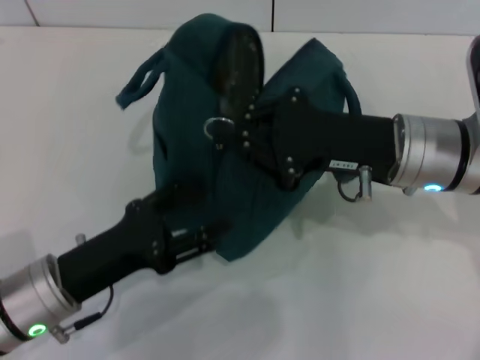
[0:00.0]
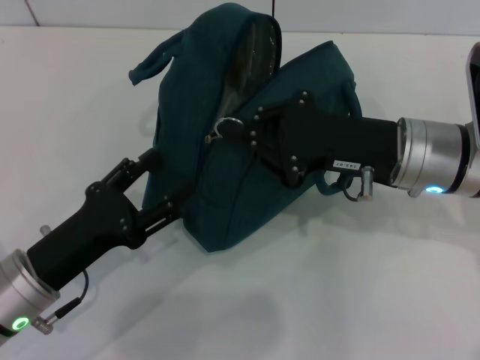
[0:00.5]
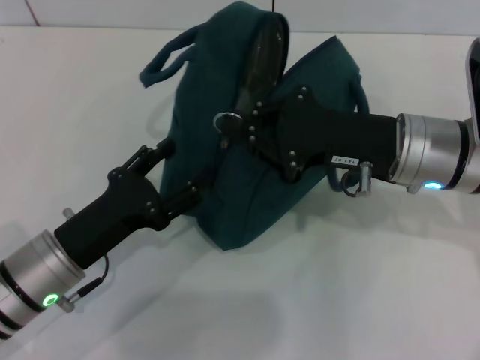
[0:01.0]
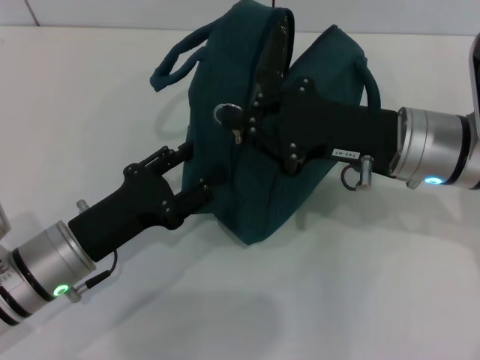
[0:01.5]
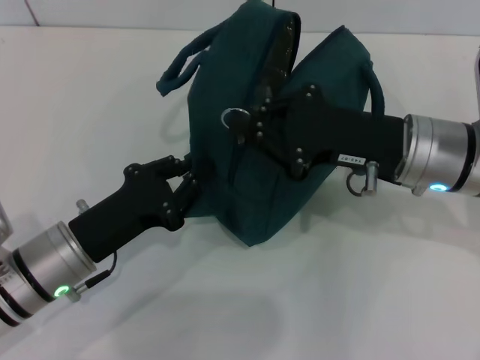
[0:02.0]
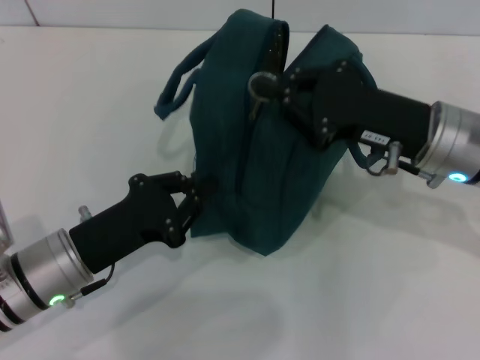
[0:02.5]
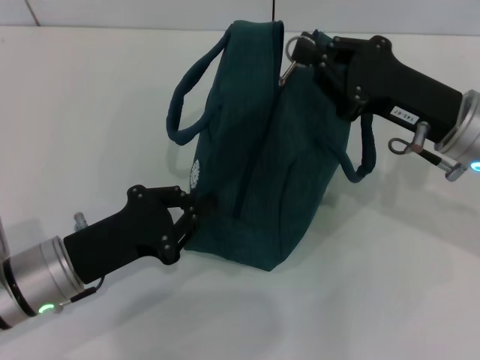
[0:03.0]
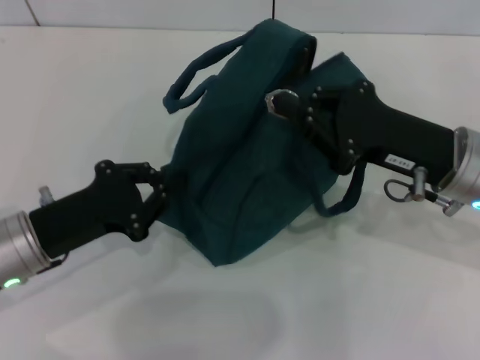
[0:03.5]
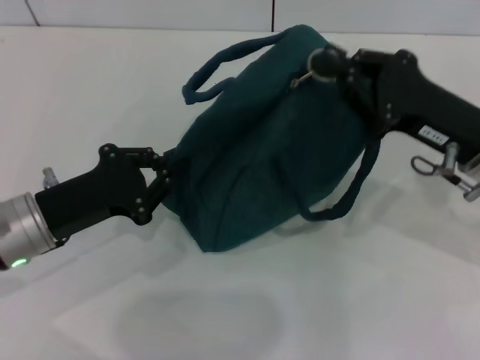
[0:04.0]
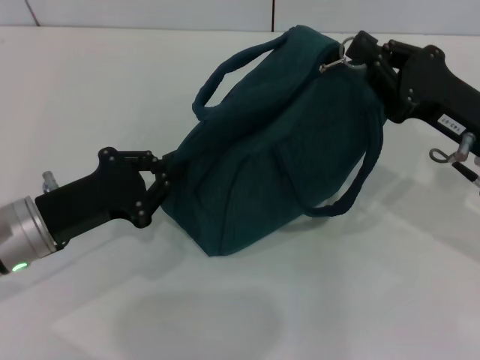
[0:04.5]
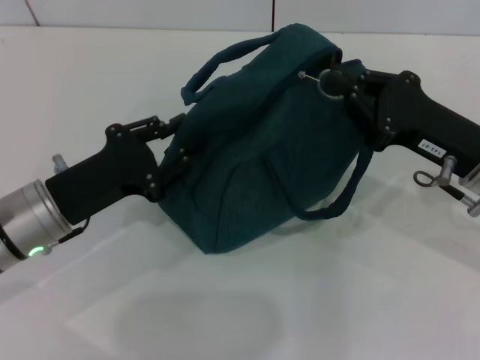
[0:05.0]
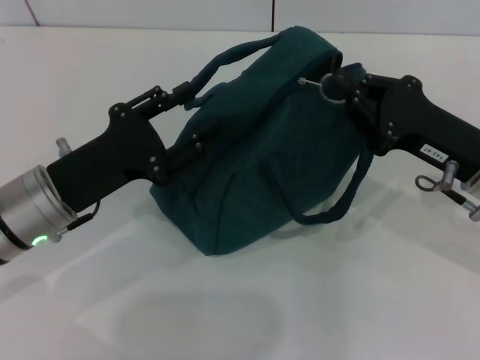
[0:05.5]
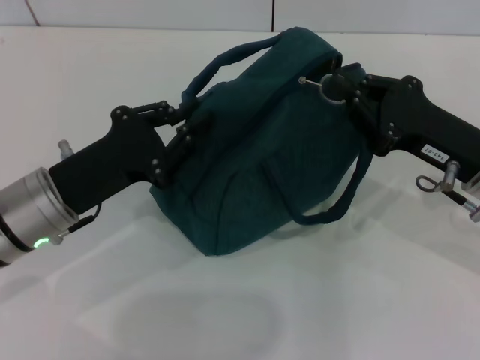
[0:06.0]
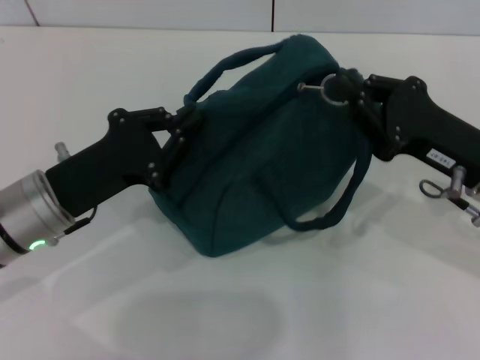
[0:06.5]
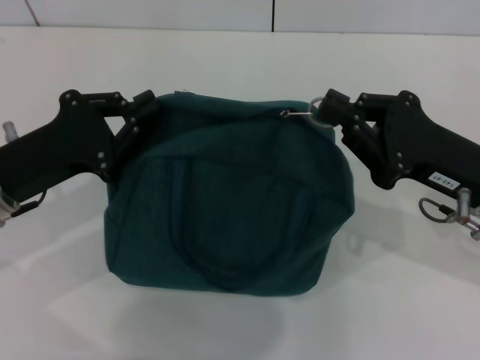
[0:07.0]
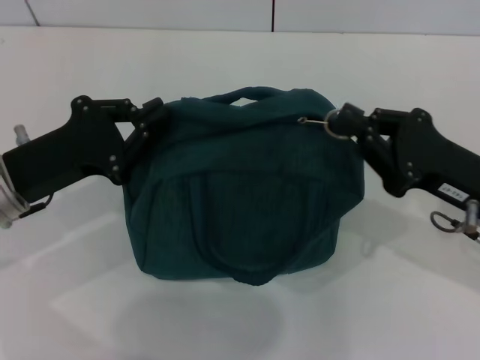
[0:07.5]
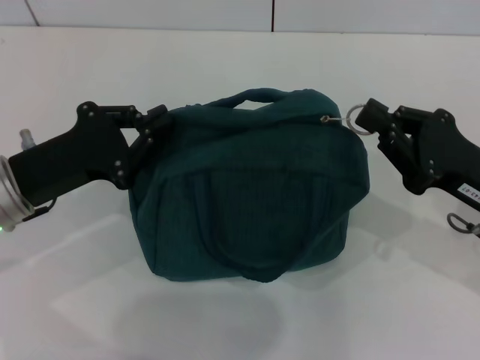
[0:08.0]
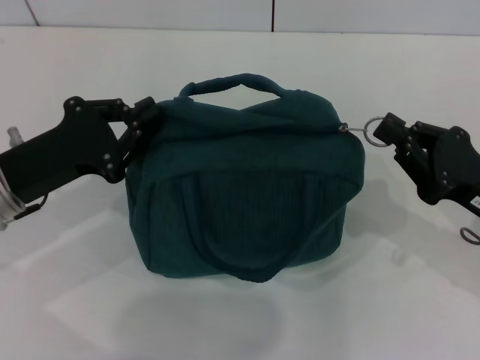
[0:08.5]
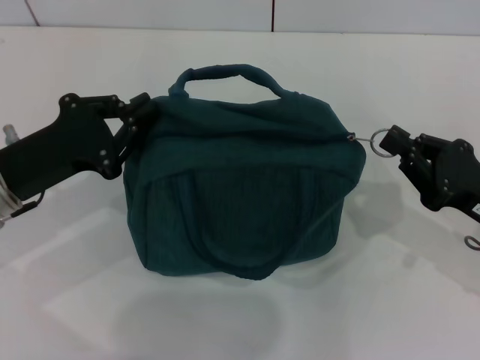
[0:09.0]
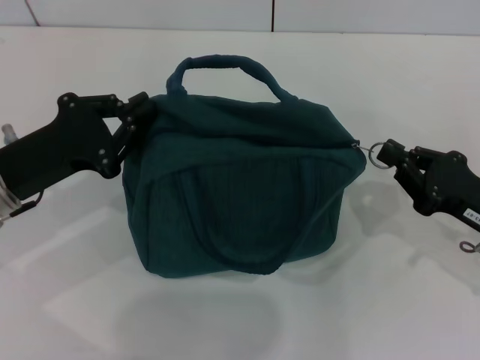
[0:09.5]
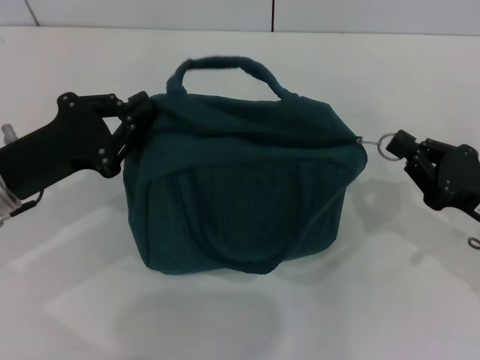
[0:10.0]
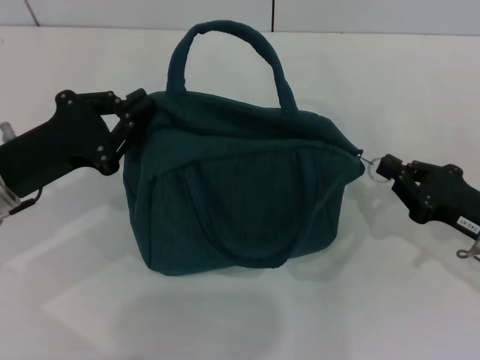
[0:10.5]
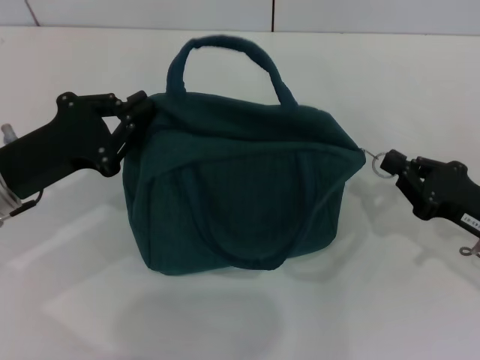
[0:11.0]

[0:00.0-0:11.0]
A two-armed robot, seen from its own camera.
0:00.0 to 0:02.0: The left gripper closes.
0:02.0 to 0:03.5: There are only small adjustments of the grippers.
0:03.5 to 0:05.5: The left gripper opens up.
0:05.5 to 0:07.5: The left gripper closes its fingers.
0:07.5 to 0:09.0: The right gripper shifts by approximately 5 cm.
0:09.0 to 0:11.0: There are only small adjustments of the grippers.

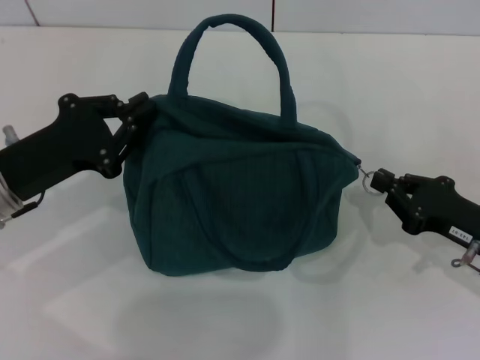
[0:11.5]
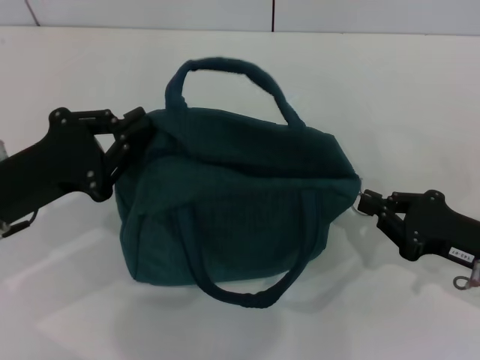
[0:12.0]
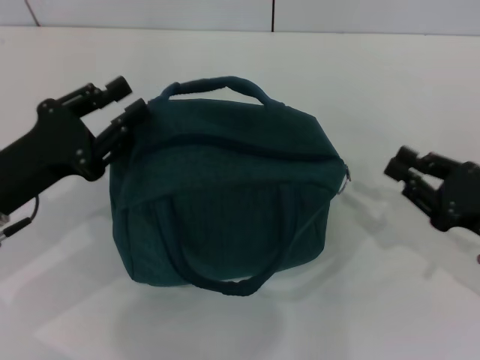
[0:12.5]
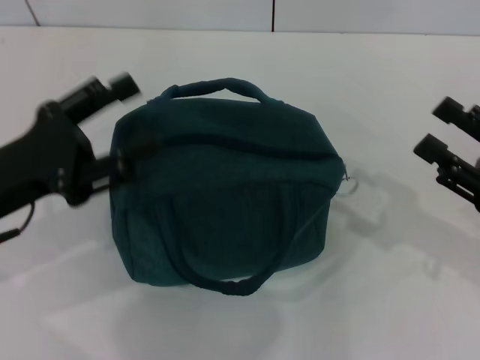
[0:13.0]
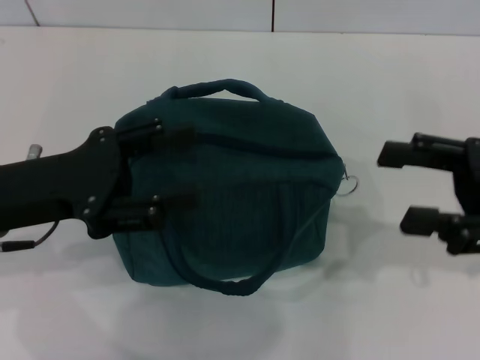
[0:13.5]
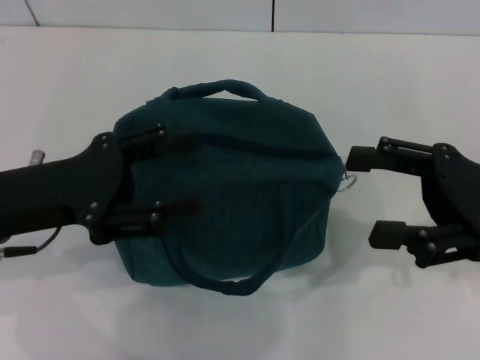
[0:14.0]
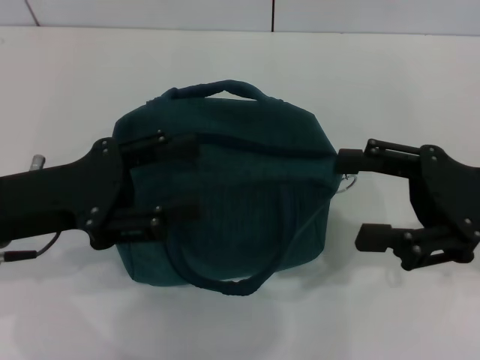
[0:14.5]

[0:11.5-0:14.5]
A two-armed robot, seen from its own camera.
0:11.5 to 0:13.0: The left gripper opens up, while the right gripper is displaced upward by about 5 cm, and opens its fingers.
0:13.0 to 0:14.5: The right gripper travels upward by approximately 5 cm, and opens its fingers.
